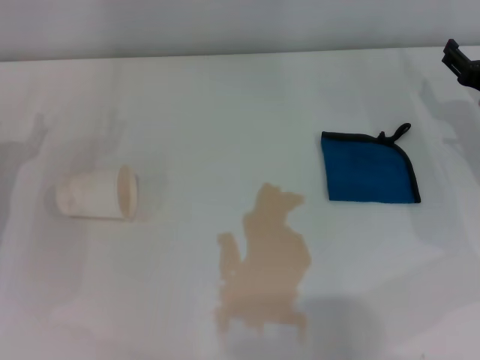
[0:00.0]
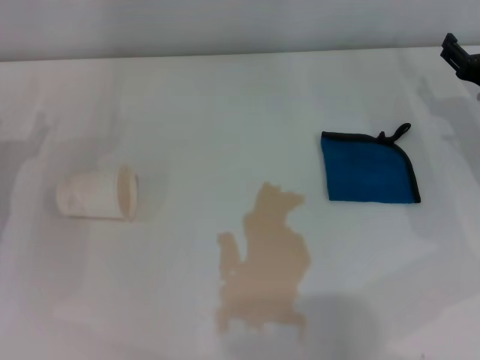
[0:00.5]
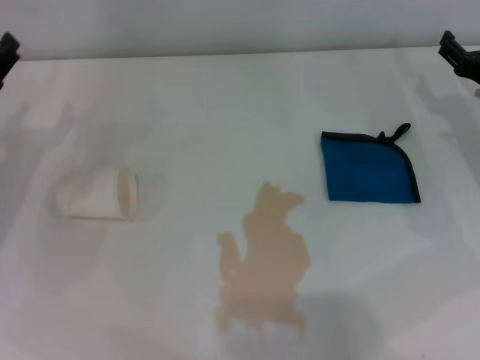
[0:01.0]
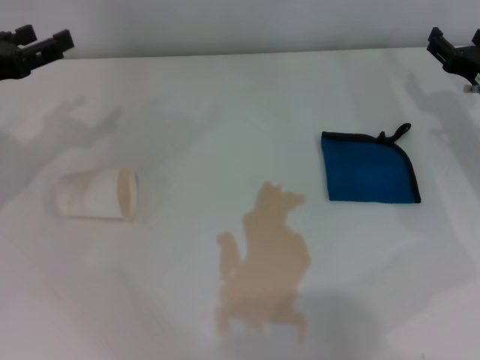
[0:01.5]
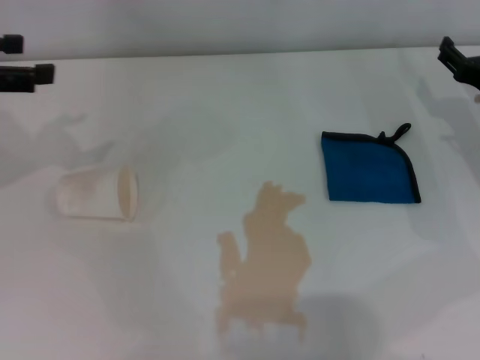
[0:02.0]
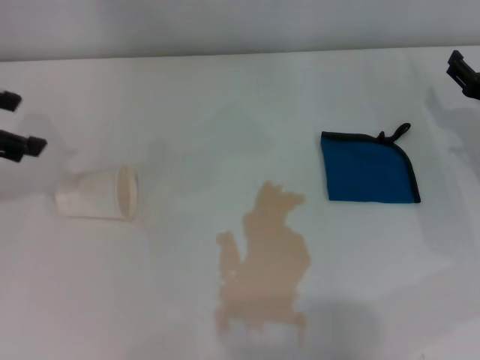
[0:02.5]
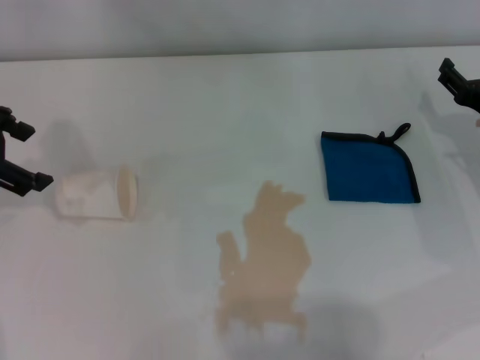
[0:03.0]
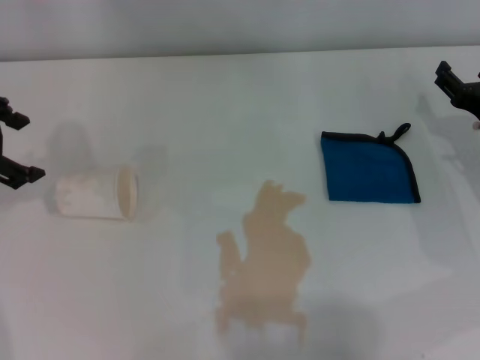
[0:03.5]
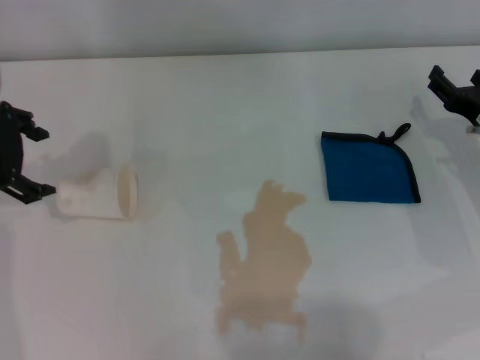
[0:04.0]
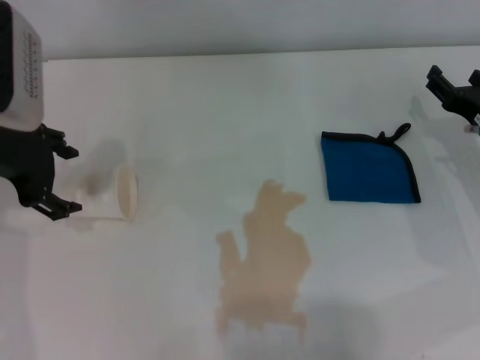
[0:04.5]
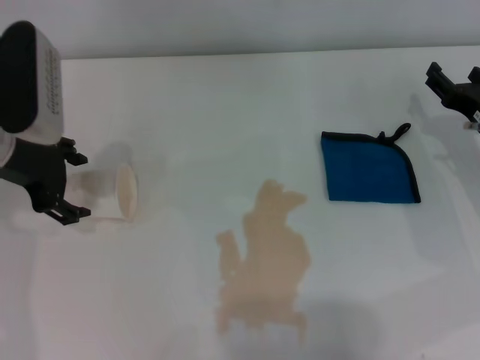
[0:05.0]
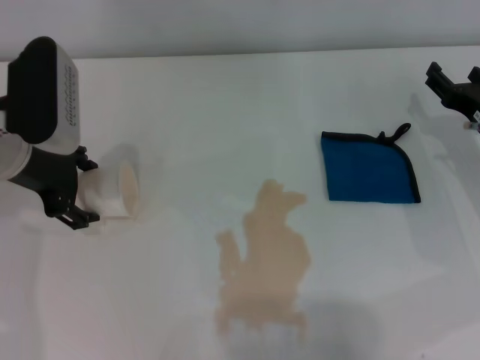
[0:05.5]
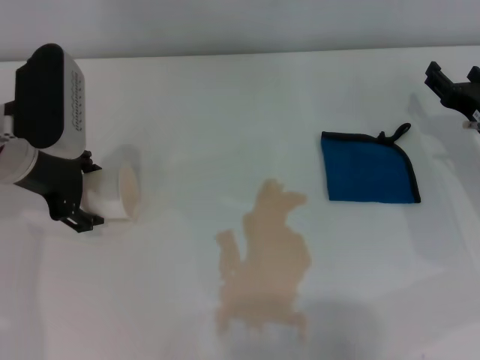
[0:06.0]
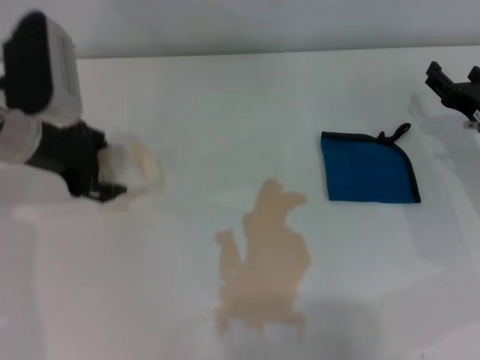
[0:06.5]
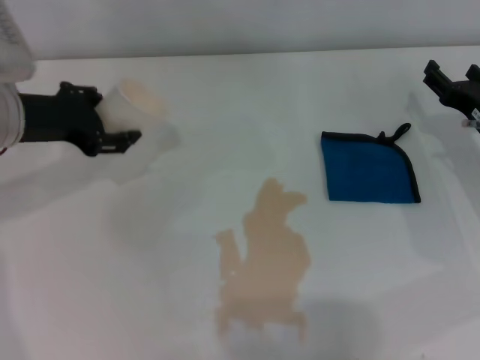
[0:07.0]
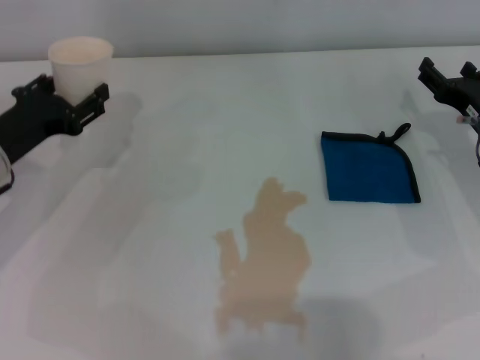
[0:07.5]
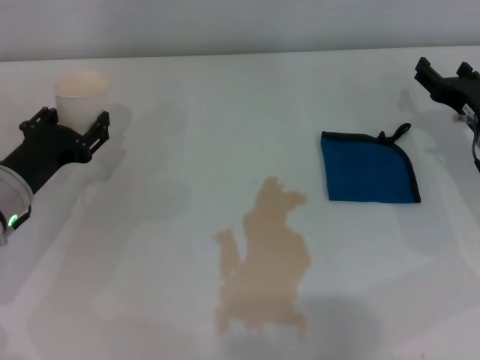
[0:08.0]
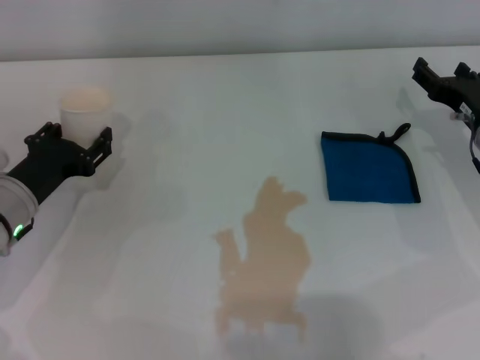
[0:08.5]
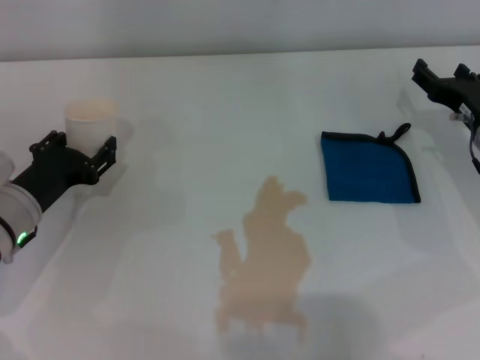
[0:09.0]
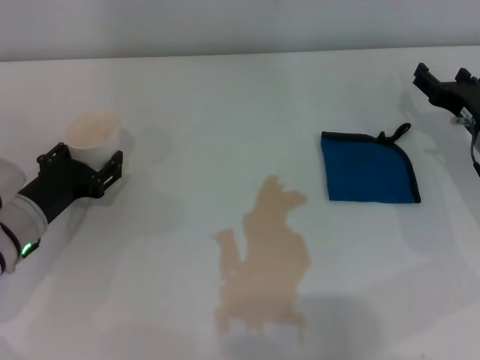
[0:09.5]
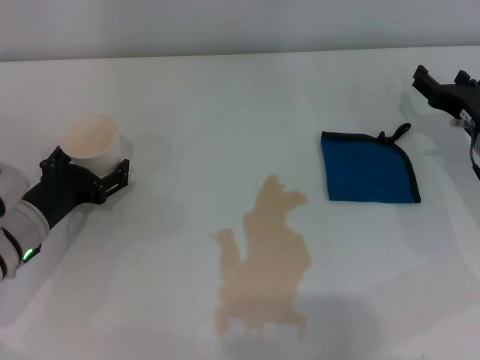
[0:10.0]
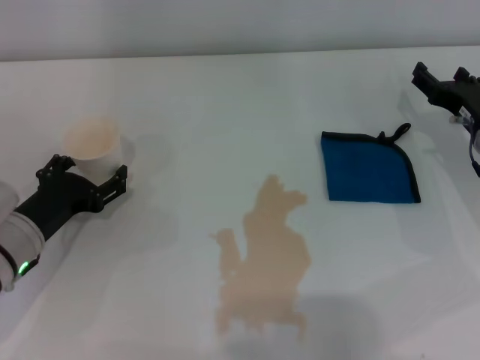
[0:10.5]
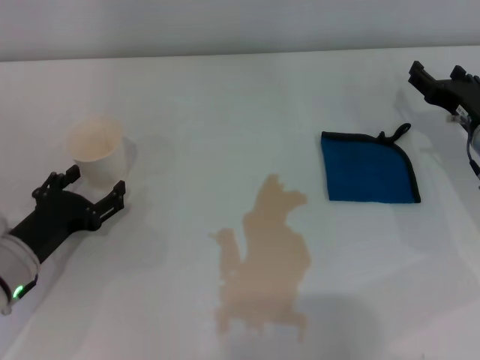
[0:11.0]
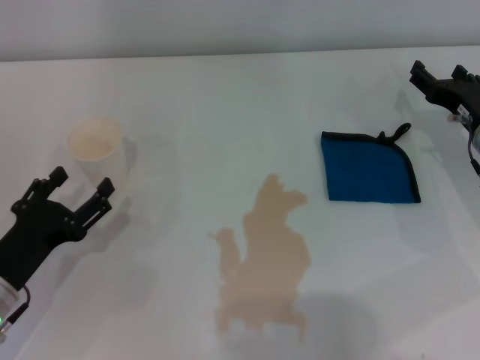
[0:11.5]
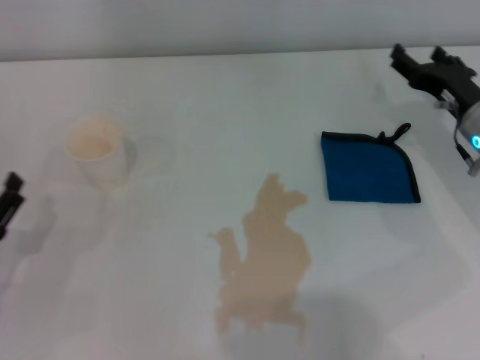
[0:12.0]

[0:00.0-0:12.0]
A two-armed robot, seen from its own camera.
Step, 0:00.0 to 0:06.0: Grasp the paper cup with the left gripper.
Step, 0:06.5 to 0:10.5: Stand the paper cup upright with the left gripper.
0:00.0 to 0:02.0: The left gripper goes some 15 cm upward.
0:02.0 to 0:04.0: The left gripper is displaced to the right by roughly 5 cm.
0:04.0 to 0:06.0: The left gripper travels downward by about 5 cm.
0:06.0 to 0:08.0: The left gripper heads downward, covering some 10 cm, and closes.
0:08.0 to 0:10.0: The left gripper opens.
0:10.0 to 0:12.0: The left gripper shifts approximately 10 cm backward and to the left, and opens its fingers.

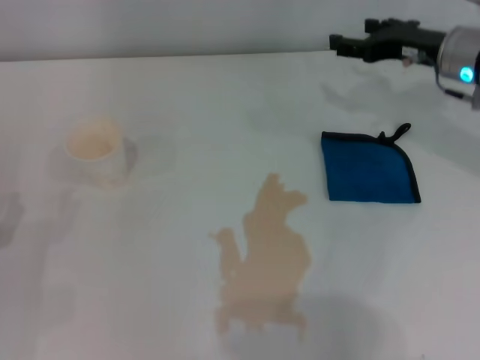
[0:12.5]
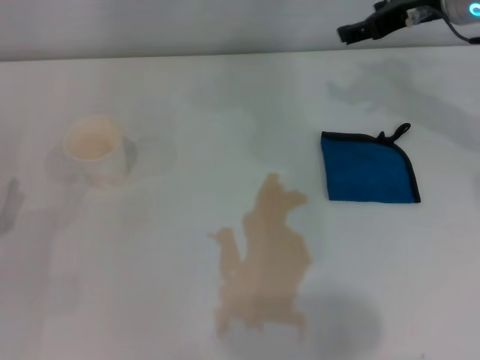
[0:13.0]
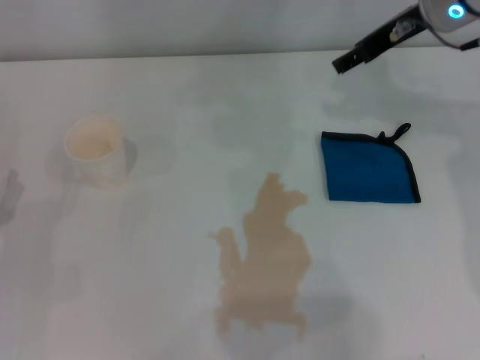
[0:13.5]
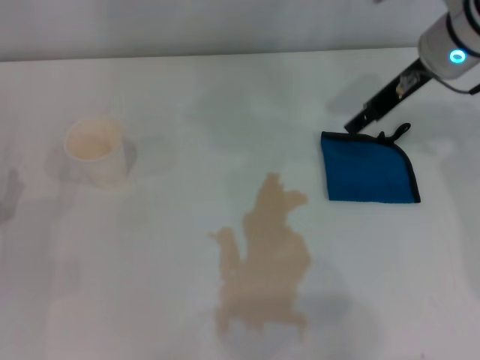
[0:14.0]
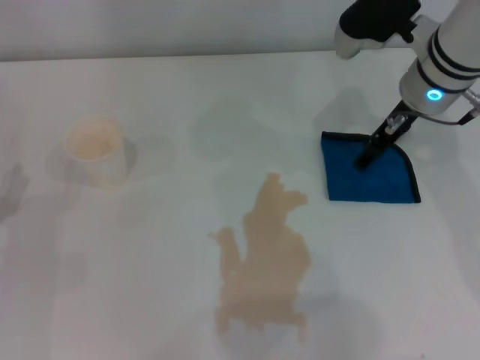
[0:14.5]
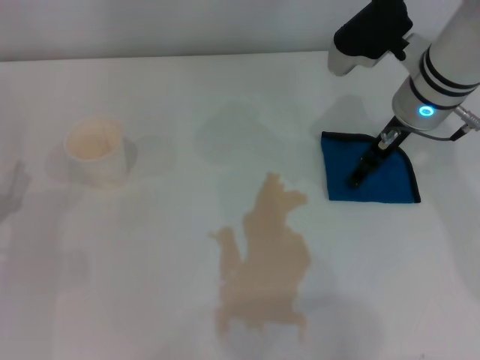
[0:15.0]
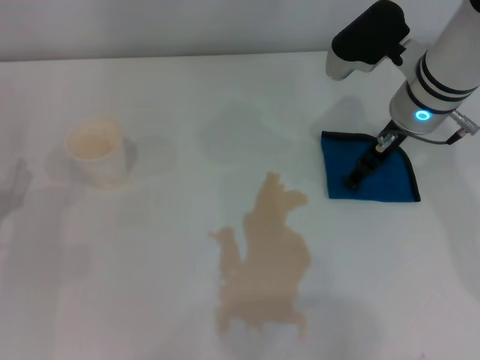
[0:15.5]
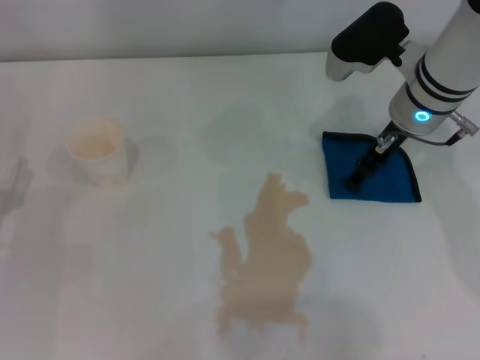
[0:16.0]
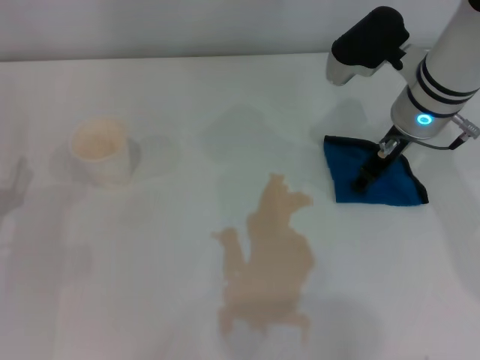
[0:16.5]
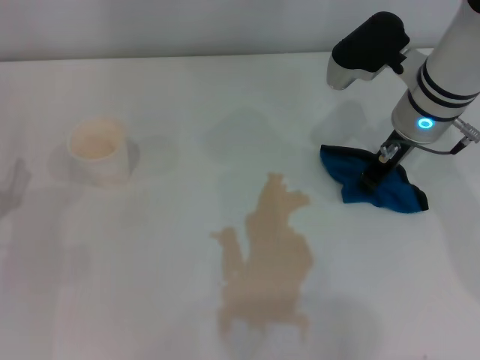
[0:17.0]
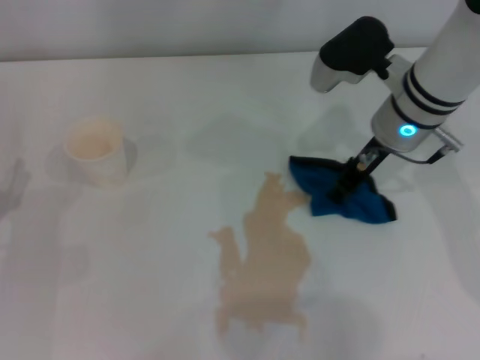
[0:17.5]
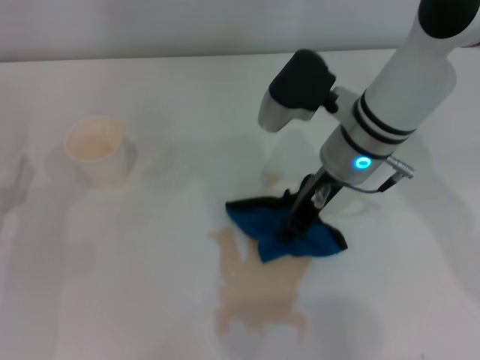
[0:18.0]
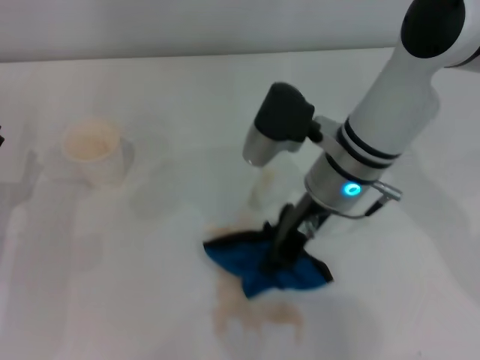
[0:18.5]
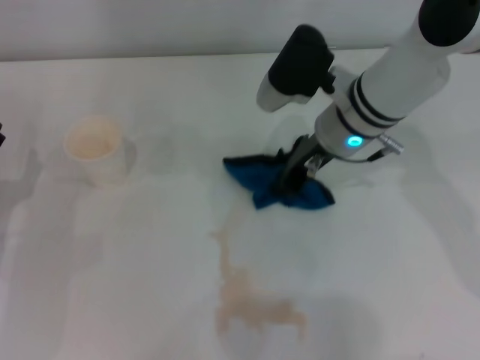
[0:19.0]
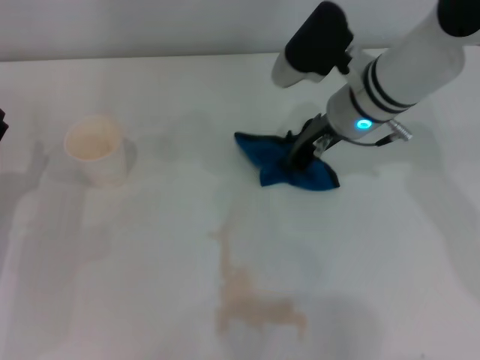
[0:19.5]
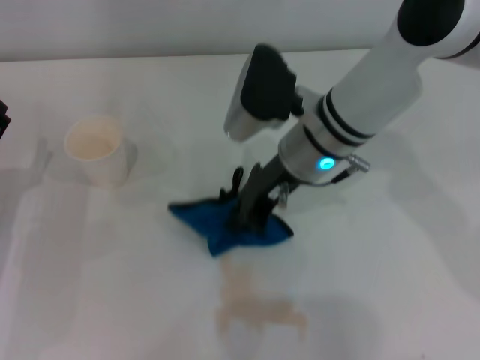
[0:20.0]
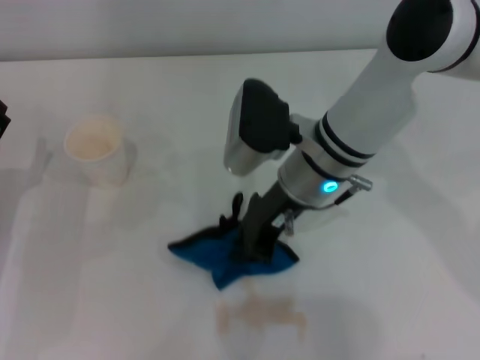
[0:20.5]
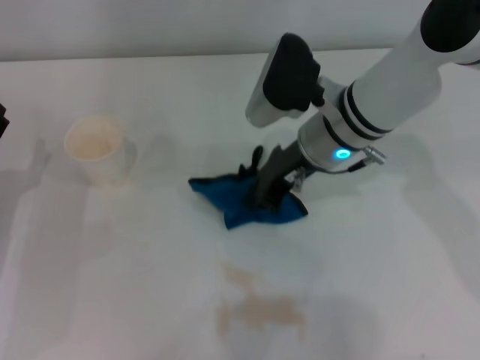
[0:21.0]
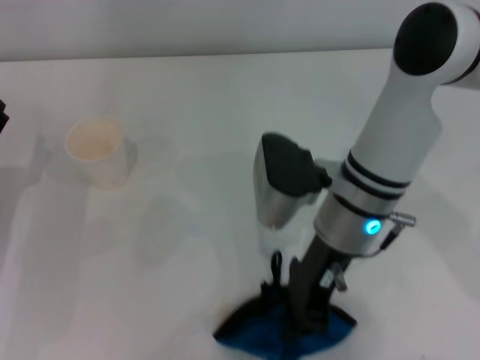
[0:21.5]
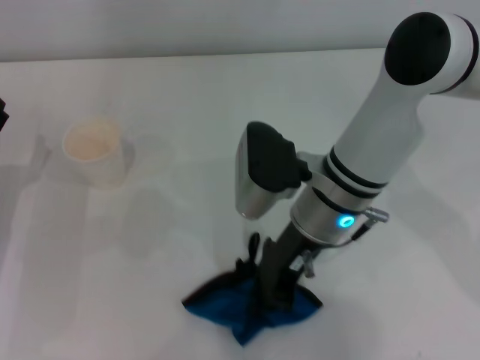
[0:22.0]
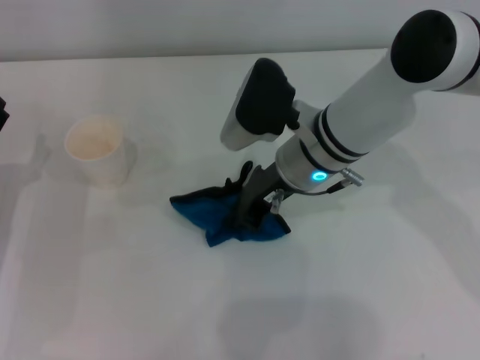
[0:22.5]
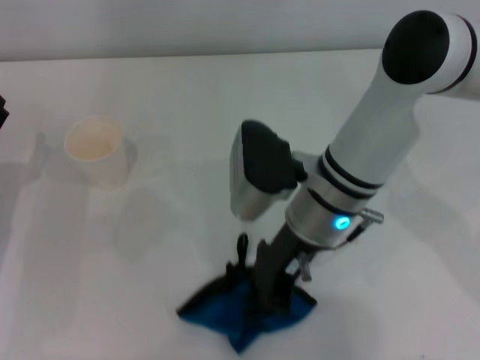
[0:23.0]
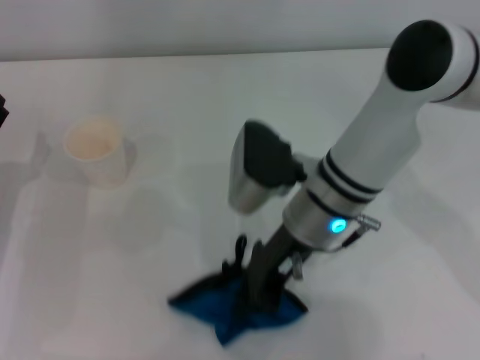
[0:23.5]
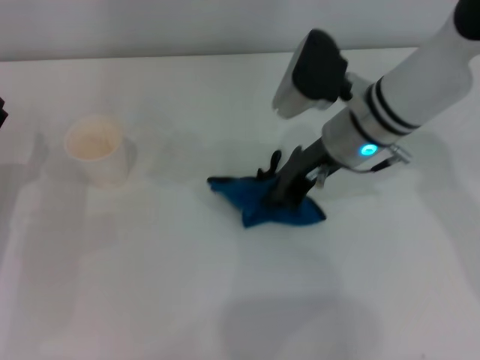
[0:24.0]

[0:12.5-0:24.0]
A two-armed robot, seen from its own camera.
Step, 0:12.5 to 0:17.0: Grasp the rag with the right gripper.
0:12.5 to 0:14.5: The right gripper heads to the left, covering about 5 cm, and travels upward and back again, about 10 cm each way.
0:14.5 to 0:16.5: The grippers stay close to where they were, moving slightly.
0:16.5 to 0:18.5: The right gripper shifts roughly 10 cm to the left, and closes.
0:20.0 to 0:22.0: The right gripper moves some 5 cm.
0:22.0 to 0:24.0: The right gripper swings forward and backward, about 5 cm each way, with 2 reversals.

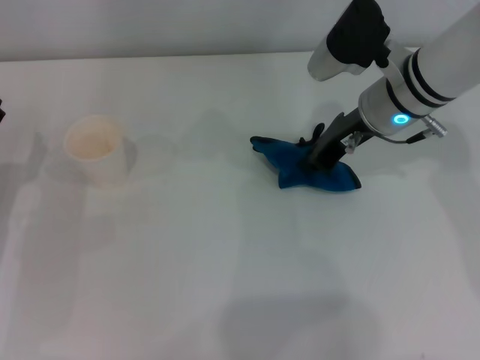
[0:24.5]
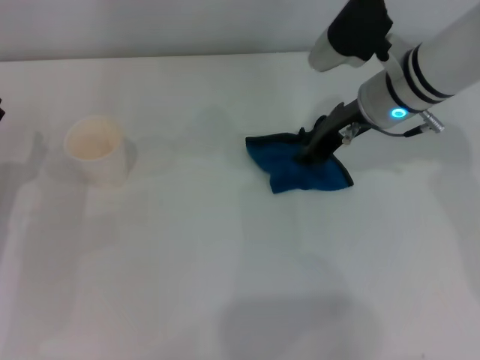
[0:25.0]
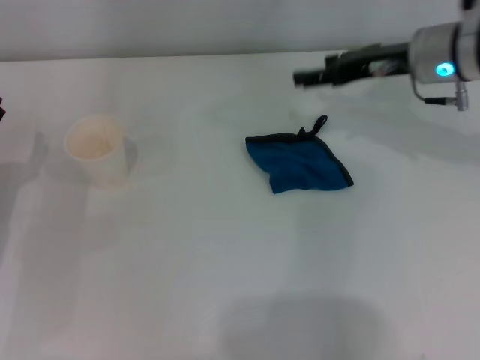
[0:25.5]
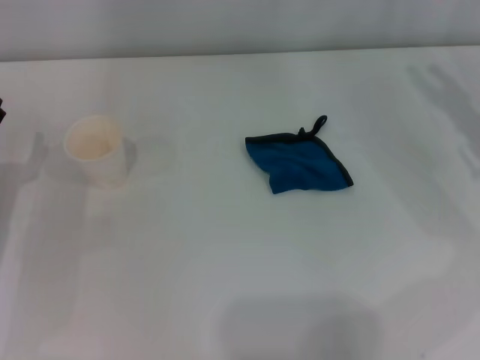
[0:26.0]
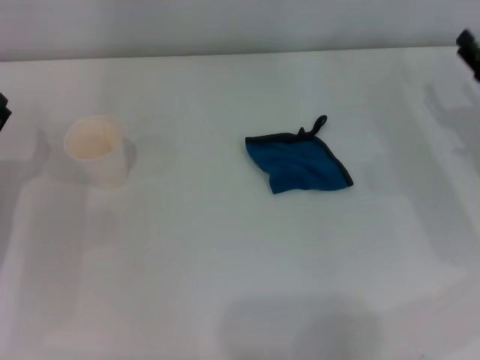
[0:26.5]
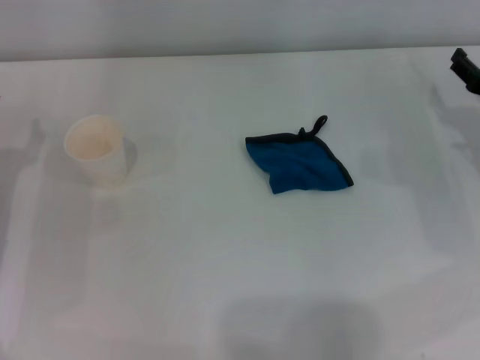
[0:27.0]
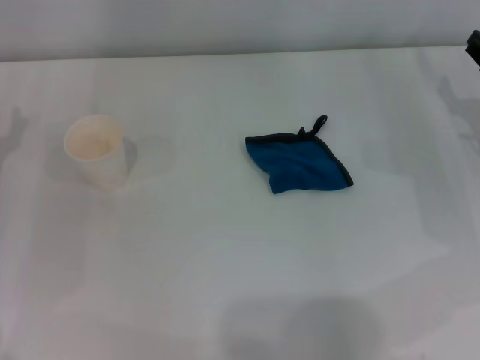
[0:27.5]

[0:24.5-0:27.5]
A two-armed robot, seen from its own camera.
0:24.5 to 0:26.0: The right gripper goes roughly 20 cm to the right and backward, and opens.
